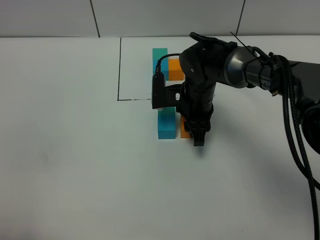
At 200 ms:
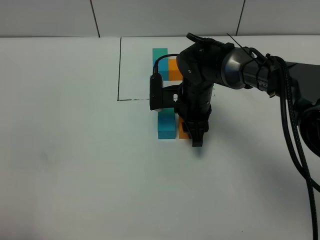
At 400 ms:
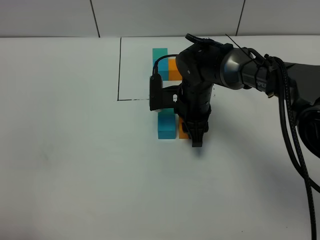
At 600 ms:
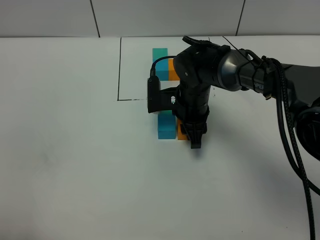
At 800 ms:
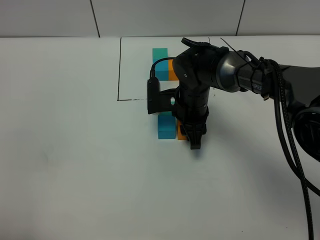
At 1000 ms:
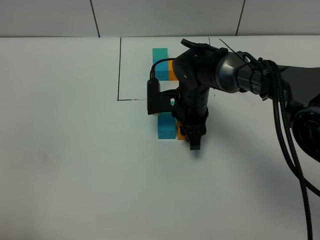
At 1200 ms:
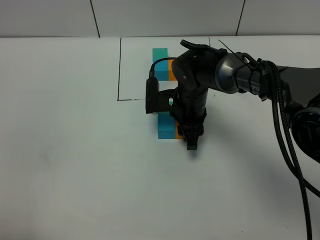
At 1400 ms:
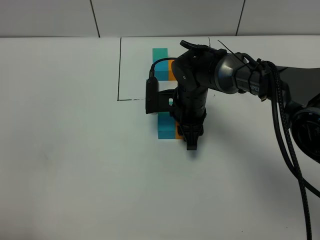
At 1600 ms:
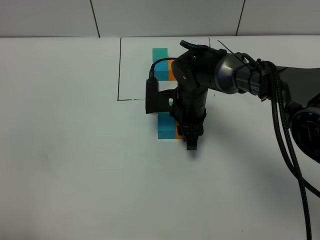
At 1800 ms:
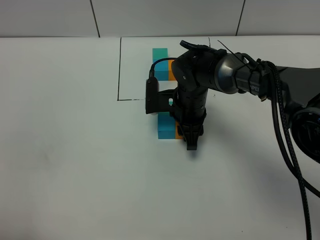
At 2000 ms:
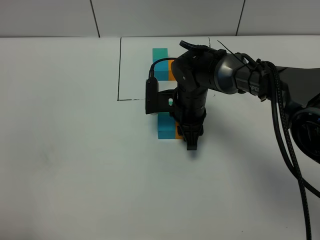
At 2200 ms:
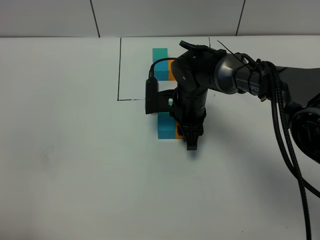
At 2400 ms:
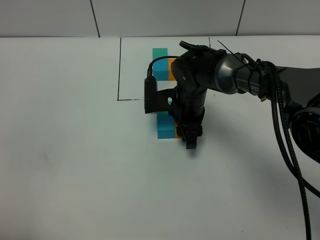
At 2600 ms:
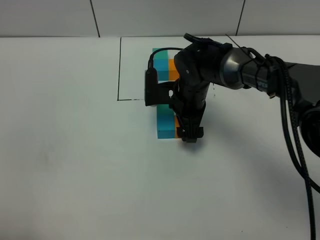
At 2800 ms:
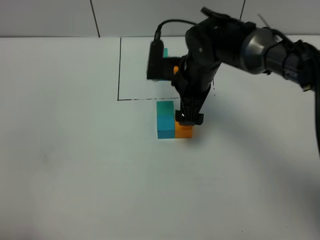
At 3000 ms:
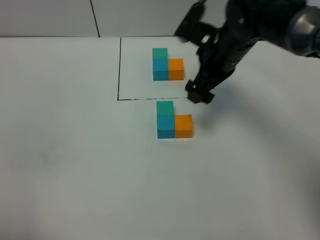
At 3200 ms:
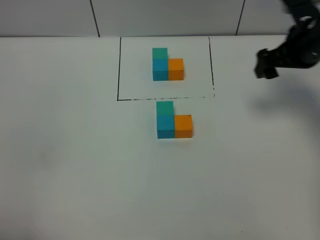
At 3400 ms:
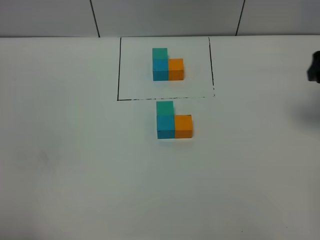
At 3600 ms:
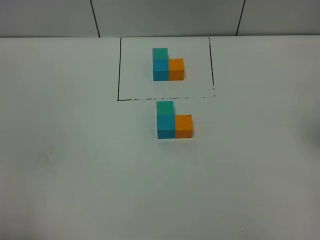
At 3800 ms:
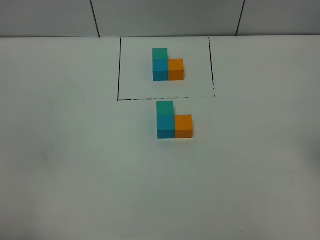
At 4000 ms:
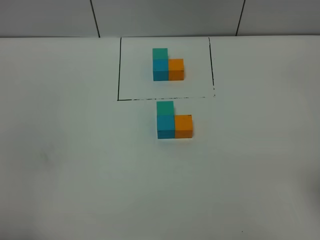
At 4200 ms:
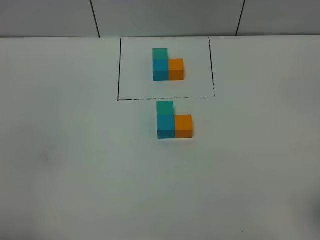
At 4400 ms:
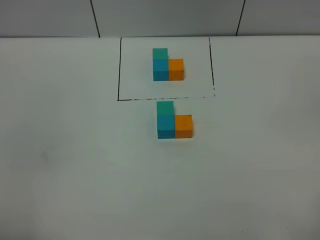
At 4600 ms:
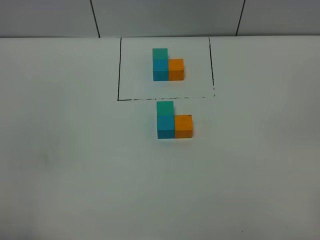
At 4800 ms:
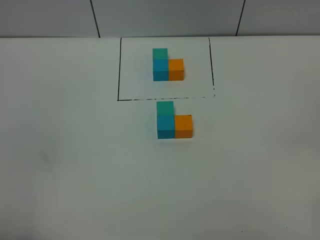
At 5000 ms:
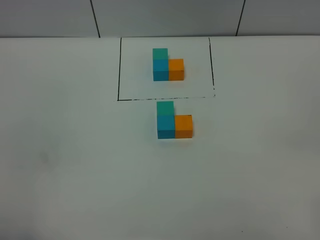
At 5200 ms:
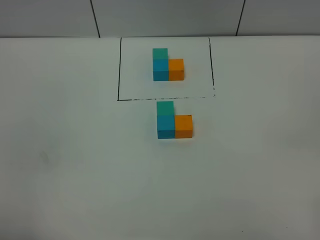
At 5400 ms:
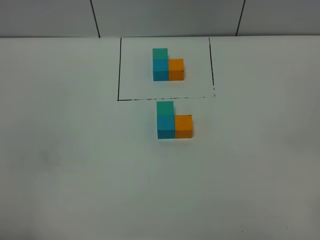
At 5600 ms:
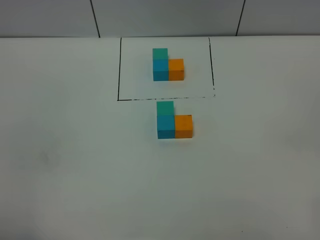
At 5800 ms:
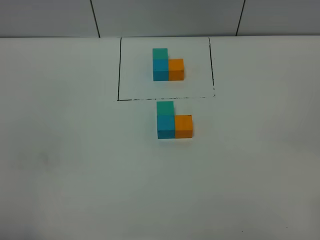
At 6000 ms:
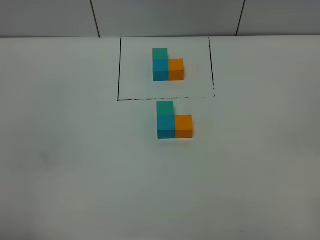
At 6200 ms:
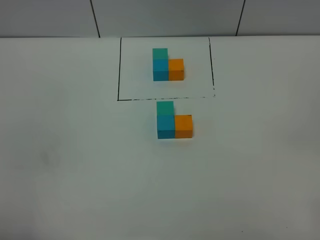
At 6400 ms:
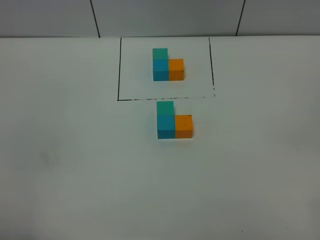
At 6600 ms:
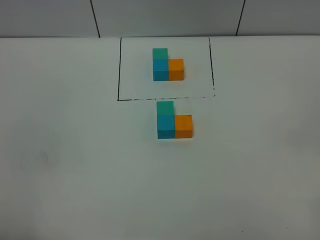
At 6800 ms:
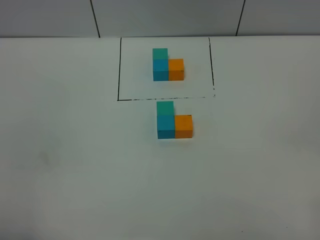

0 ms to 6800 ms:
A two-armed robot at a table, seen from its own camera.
Task of the whole recording: According to the building block template in front, assemble the scattered blocks together.
Step, 0 ms to 2400 ms: Put the orange build block on the right of the blue build block.
0 ms to 1400 ms: The grippers stay close to where they were, moving slightly.
1400 ms to 2800 ms: The right gripper travels upward by about 10 cm, and opens its fingers.
2800 ms to 4000 ms: The right gripper goes roughly 35 cm backward, to the right and upward.
5400 ms to 6800 ms: Both grippers stay about where they are.
